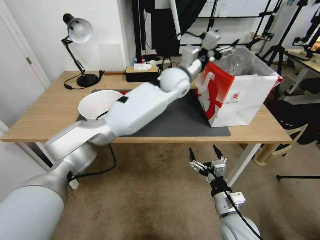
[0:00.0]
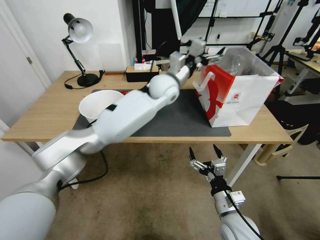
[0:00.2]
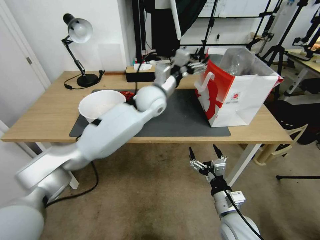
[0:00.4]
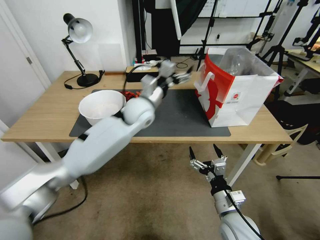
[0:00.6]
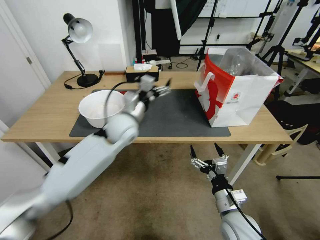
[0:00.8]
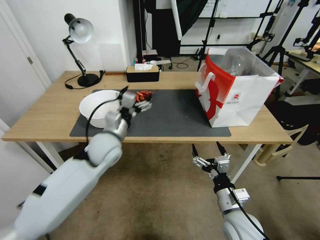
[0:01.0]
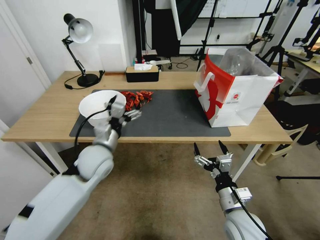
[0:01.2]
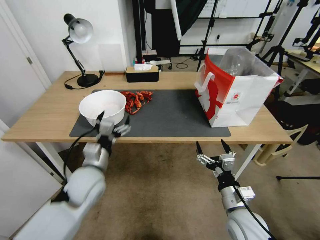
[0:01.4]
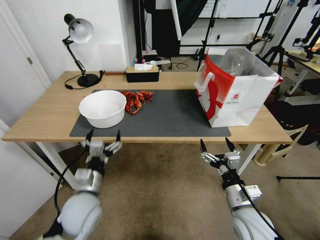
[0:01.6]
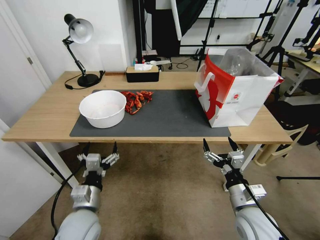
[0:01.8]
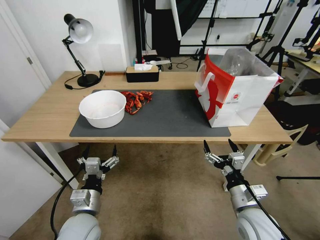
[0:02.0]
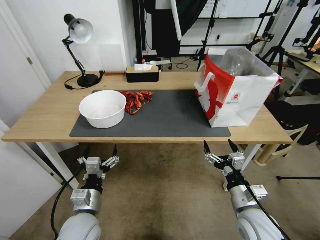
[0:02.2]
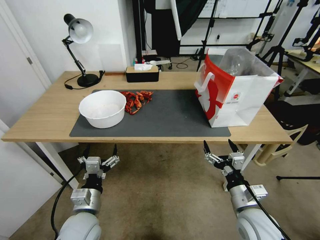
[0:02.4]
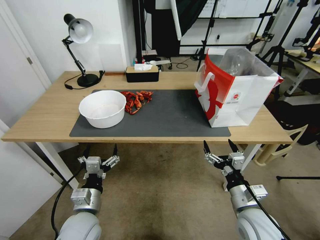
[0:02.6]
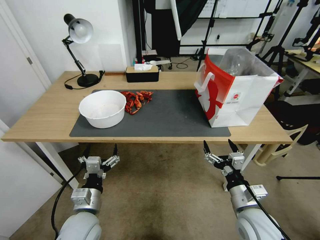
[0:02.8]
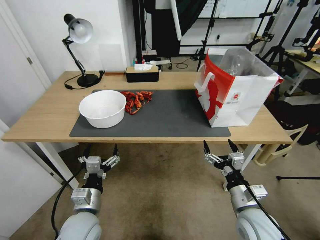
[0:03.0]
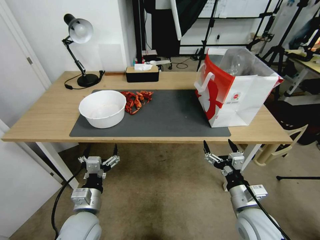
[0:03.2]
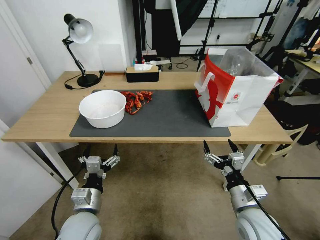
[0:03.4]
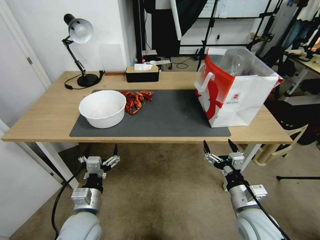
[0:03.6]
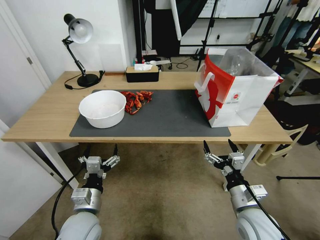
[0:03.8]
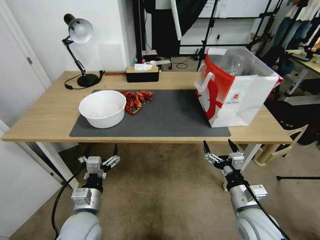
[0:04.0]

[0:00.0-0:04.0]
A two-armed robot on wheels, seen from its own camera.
Task of the whole recording: Close the takeout container lid, then place the container into the takeout bag.
0:00.0 to 0:01.4: The left gripper shifts about 40 cm to the left, backward and downward.
0:01.4 to 0:02.6: The left gripper travels backward and downward by about 15 cm.
0:02.6 to 0:04.0: The two grippers keep their place.
